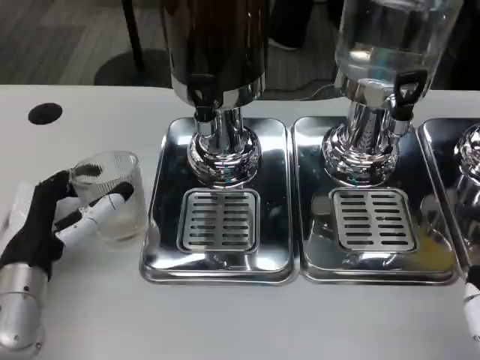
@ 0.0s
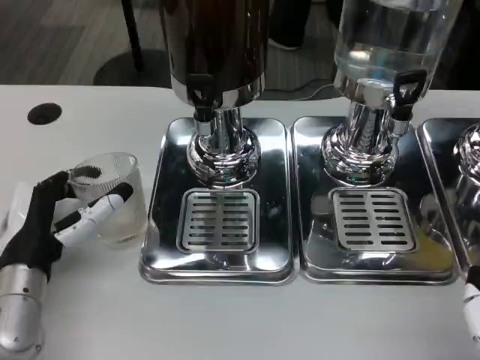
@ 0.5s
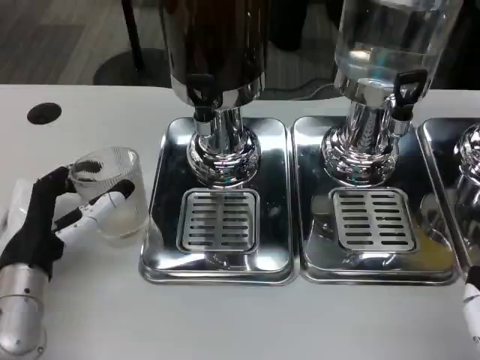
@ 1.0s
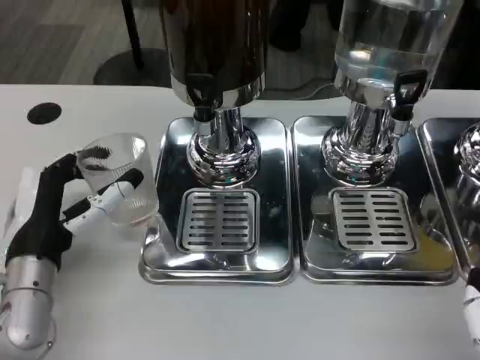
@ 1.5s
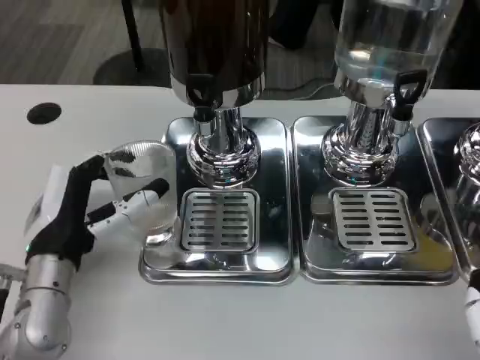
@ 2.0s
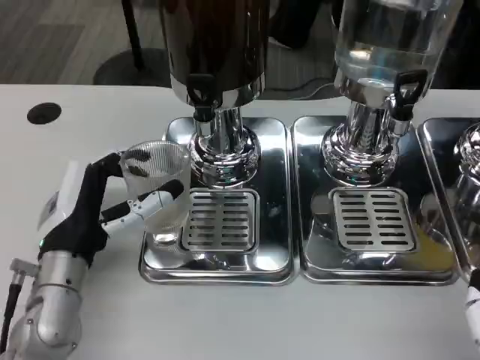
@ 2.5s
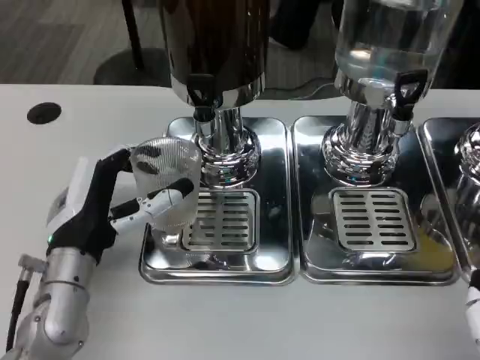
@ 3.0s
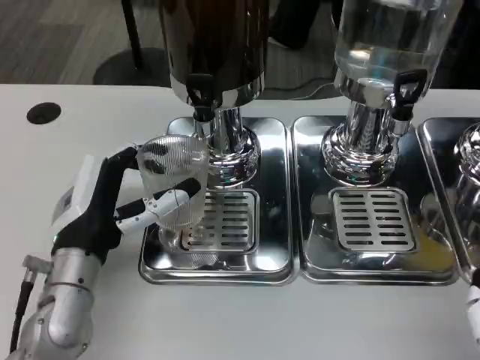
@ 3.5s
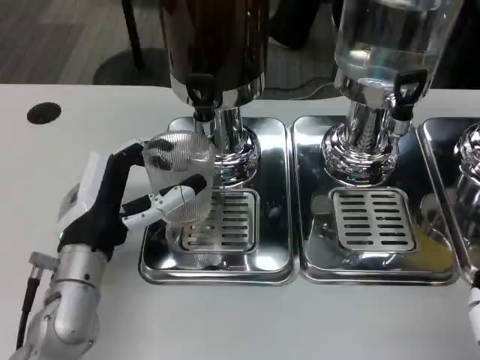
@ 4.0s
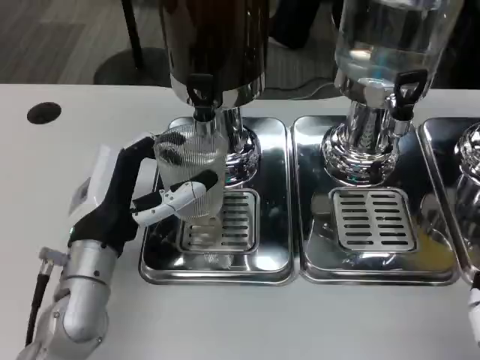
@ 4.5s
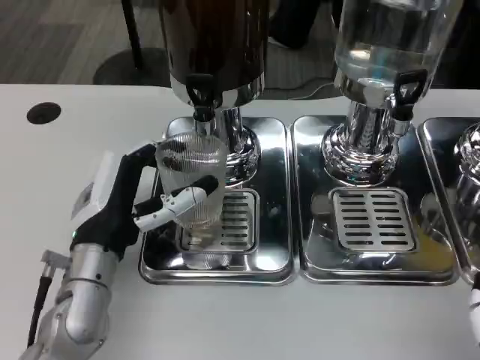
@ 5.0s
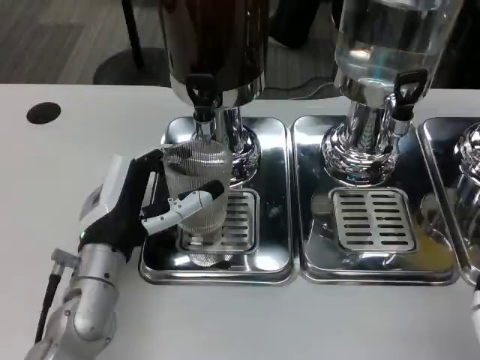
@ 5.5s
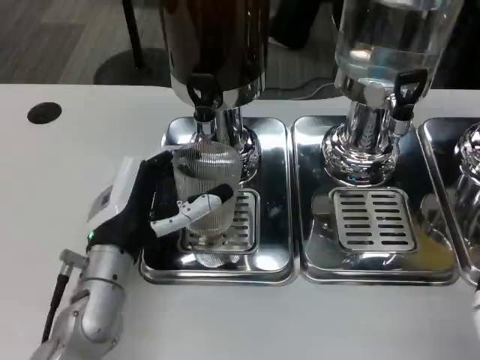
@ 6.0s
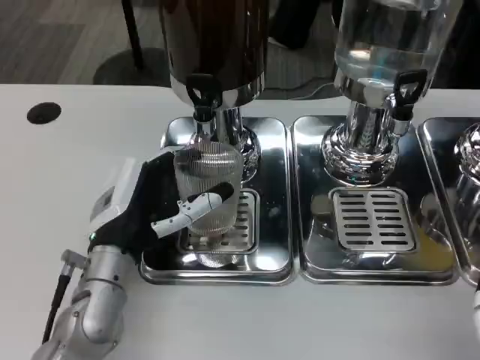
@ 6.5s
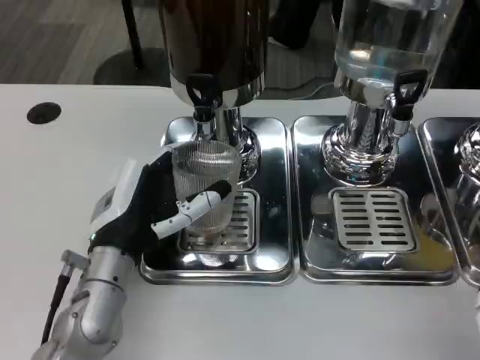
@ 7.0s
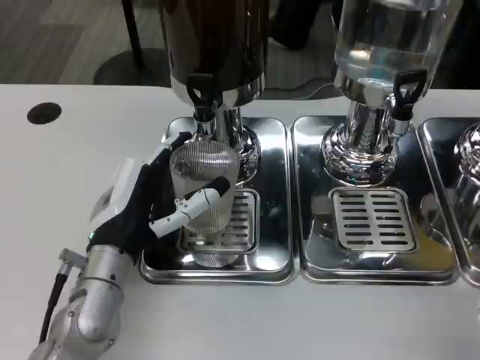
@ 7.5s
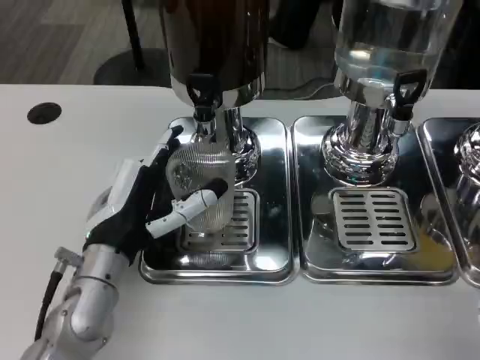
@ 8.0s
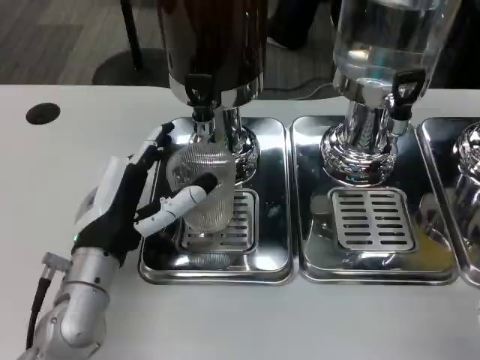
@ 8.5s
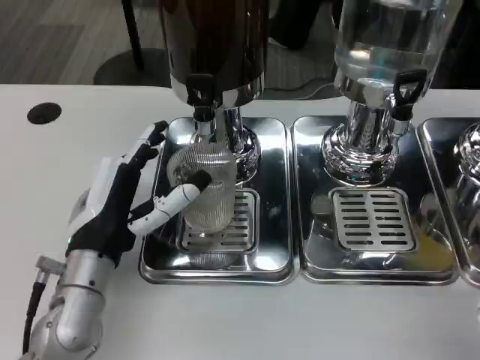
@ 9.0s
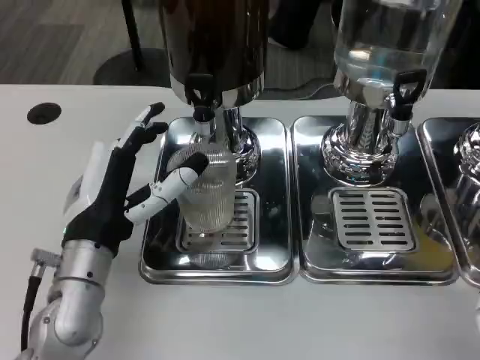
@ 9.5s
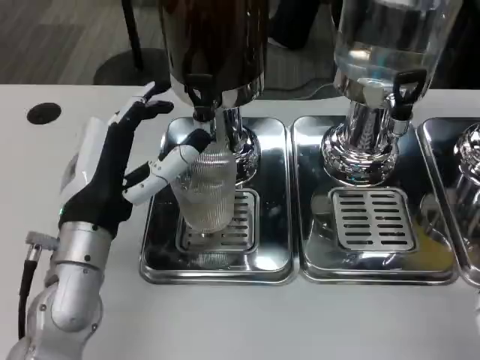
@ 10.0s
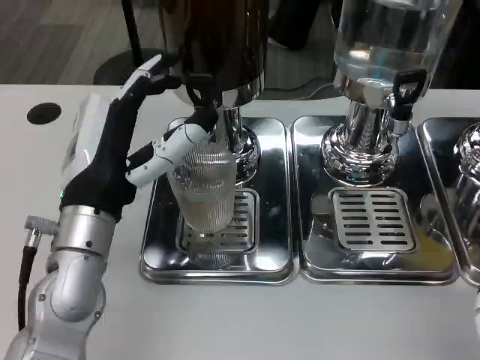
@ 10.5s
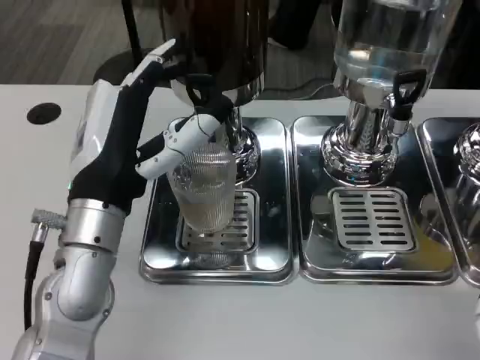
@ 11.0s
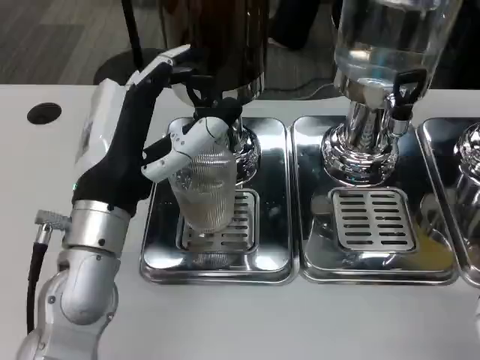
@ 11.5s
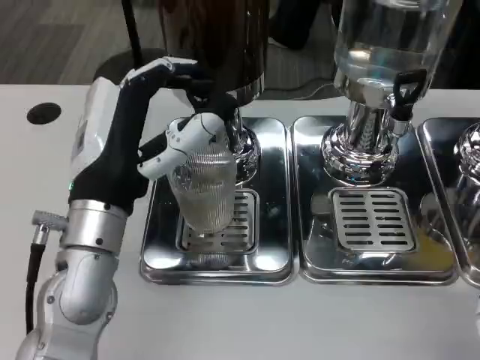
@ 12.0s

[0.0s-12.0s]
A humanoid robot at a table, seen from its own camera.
Task of the whole recording: Grasp the cup under the faucet to collect the drink, then remove the cup.
0.0s to 4.0s: The hands stay close to where they were, moving slightly.
4.0s to 6.0s: The hands move only a little.
6.0s to 8.0s: Both hands stay put.
8.0s to 10.0s: The hands stay close to where they were, moving slightly.
10.0s to 12.0s: The hands move only a little.

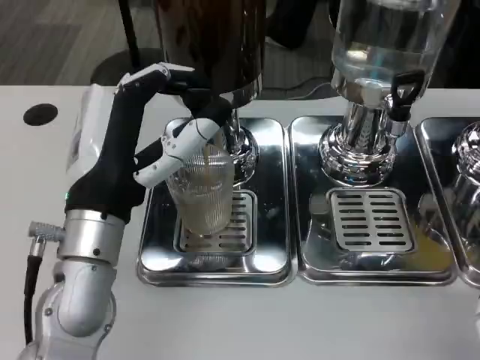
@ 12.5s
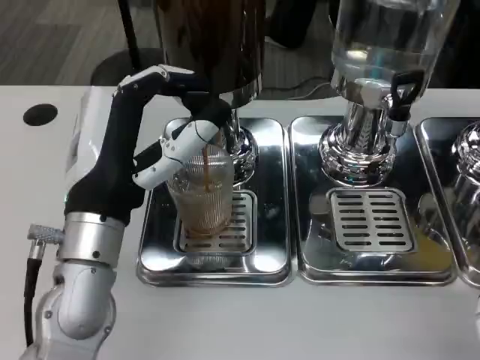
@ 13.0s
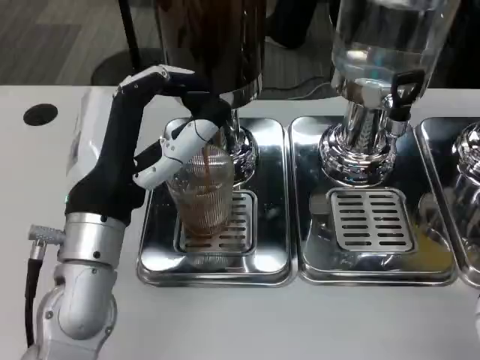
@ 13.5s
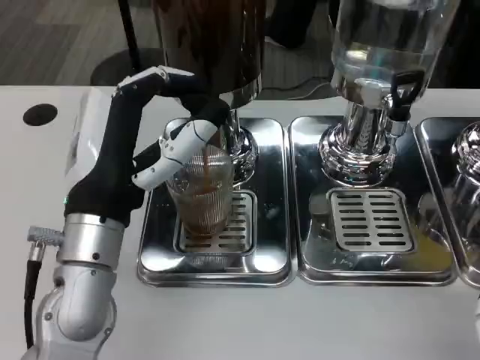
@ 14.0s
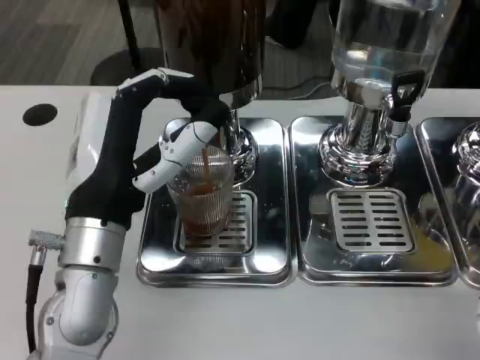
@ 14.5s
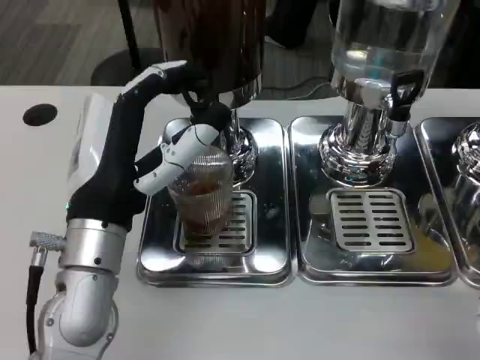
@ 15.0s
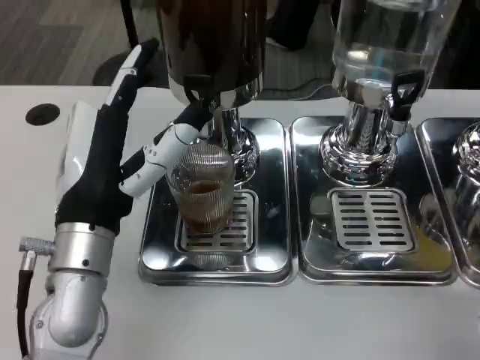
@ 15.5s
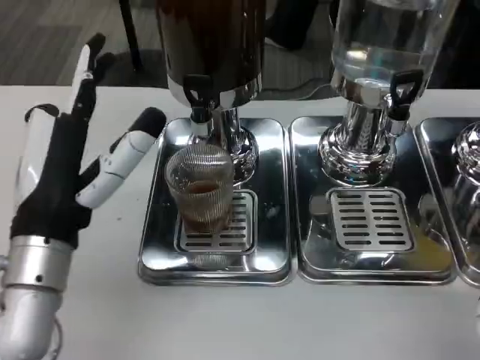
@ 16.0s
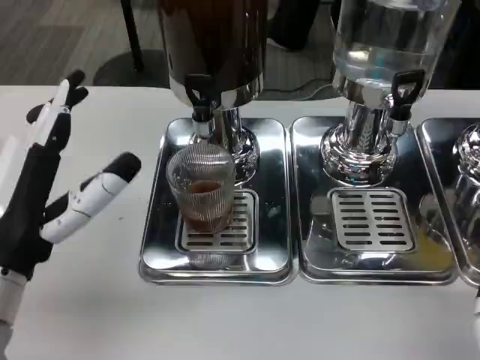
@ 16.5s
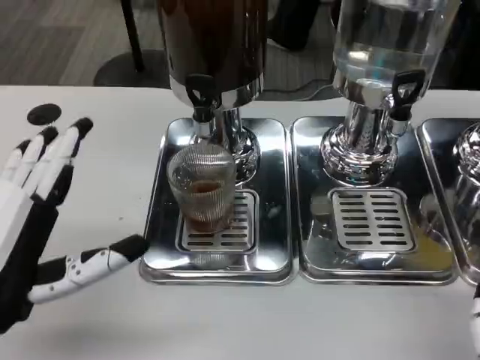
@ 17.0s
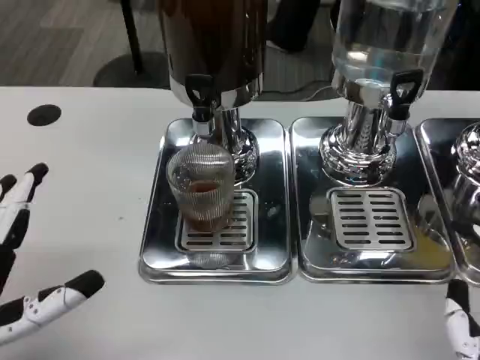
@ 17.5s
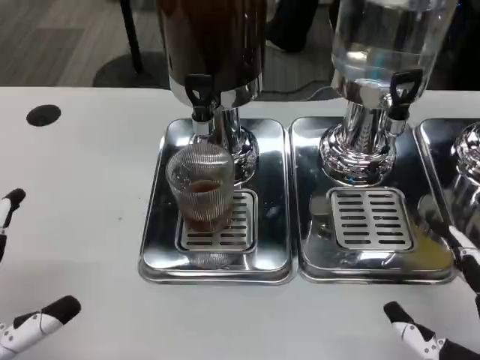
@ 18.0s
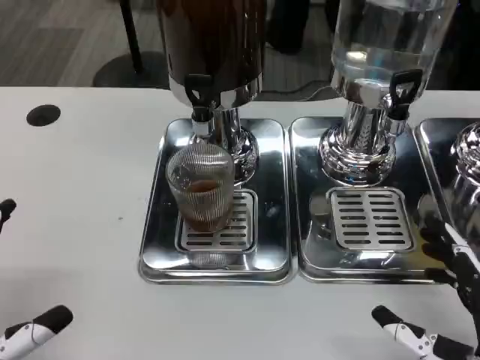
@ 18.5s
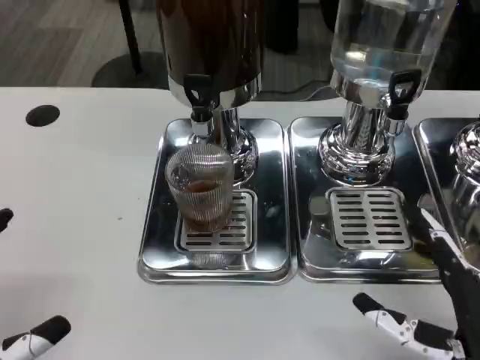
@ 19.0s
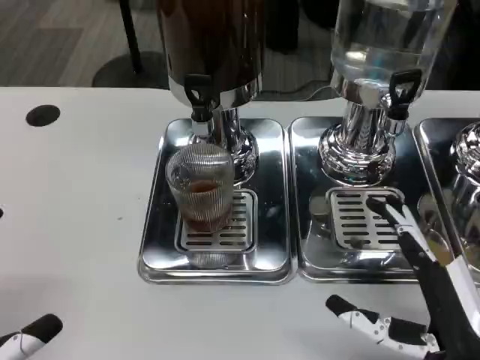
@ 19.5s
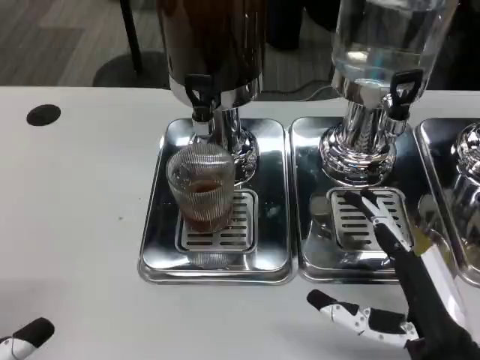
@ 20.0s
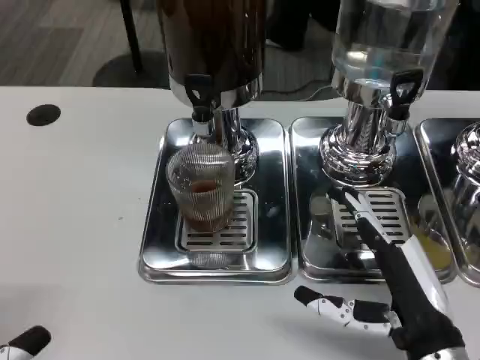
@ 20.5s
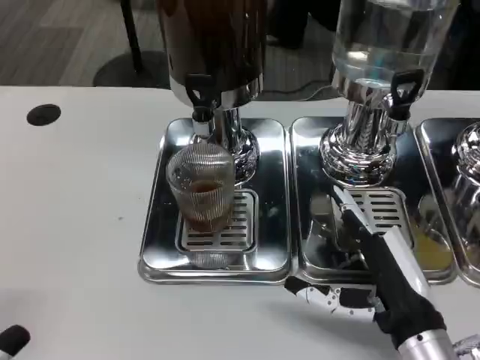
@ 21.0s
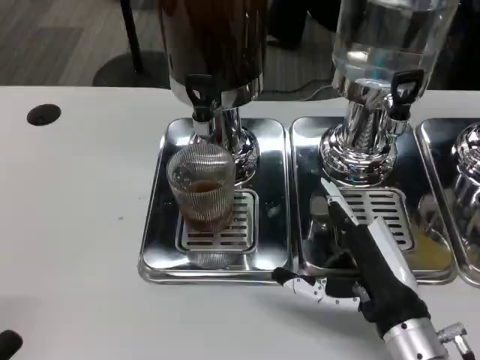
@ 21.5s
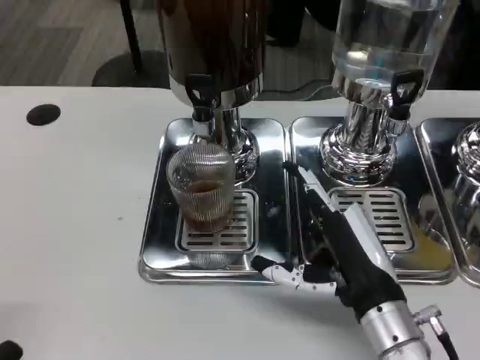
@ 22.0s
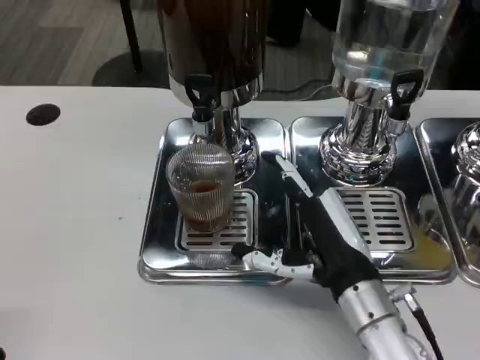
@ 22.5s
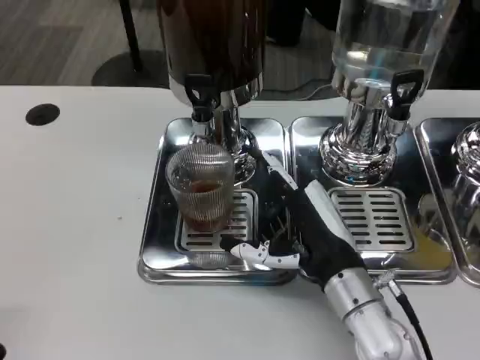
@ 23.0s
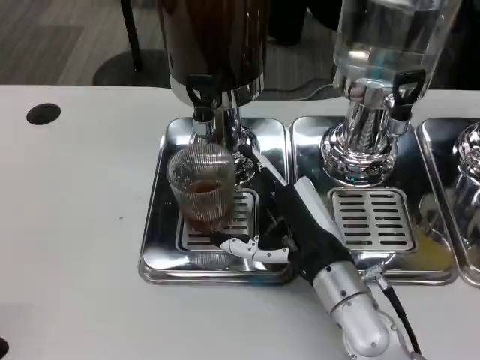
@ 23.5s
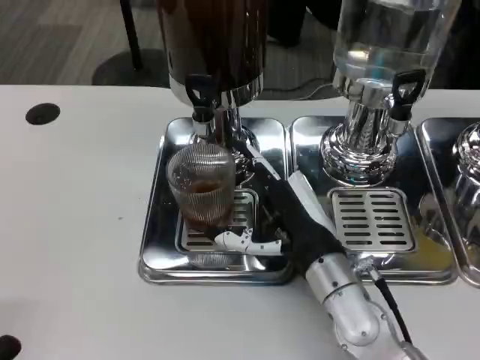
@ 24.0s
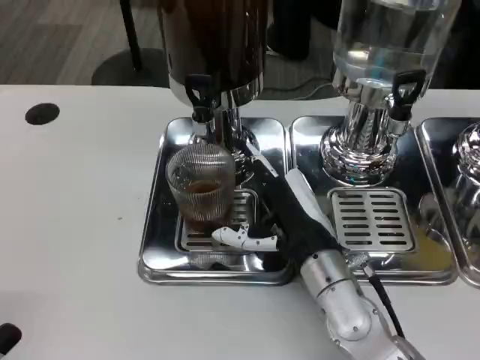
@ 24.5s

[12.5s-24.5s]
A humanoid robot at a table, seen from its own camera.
Task of the whole recording: Grasp the cup under the faucet to collect the drink, then remove the cup.
12.5s to 14.5s: Both hands stay put.
14.5s to 16.5s: The left hand is displaced to the left by approximately 10 cm.
16.5s to 18.5s: The left hand travels backward and to the left by approximately 10 cm. Meanwhile the right hand shifts by some 5 cm.
18.5s to 20.5s: The right hand is displaced forward by about 5 cm.
20.5s to 22.5s: The right hand heads forward and to the left, covering roughly 10 cm.
22.5s to 24.5s: The hands move only a little.

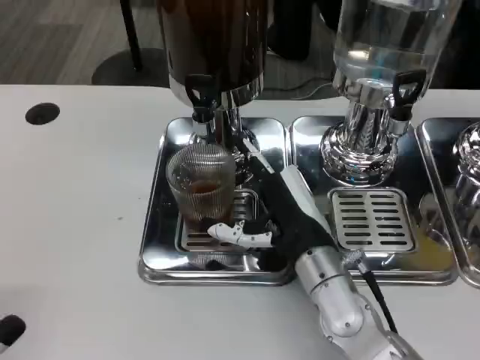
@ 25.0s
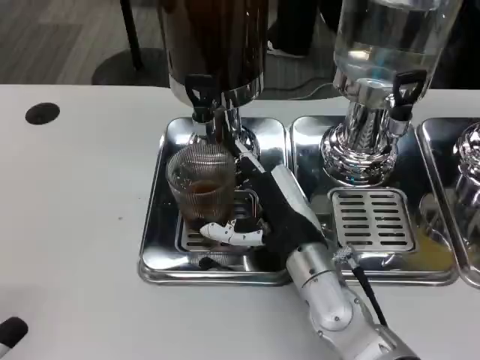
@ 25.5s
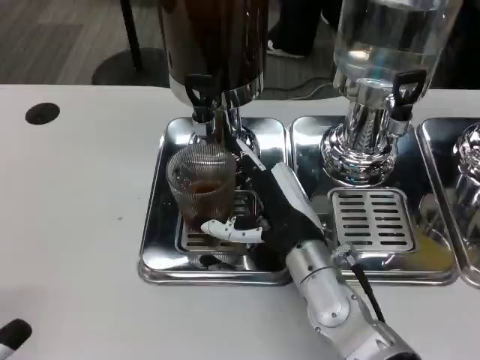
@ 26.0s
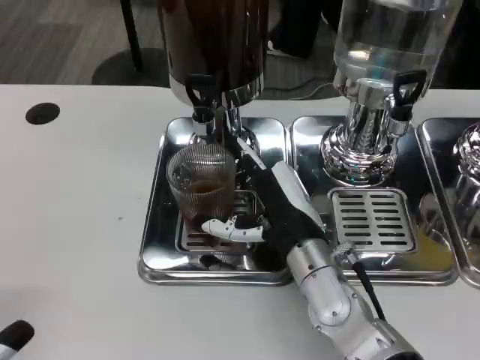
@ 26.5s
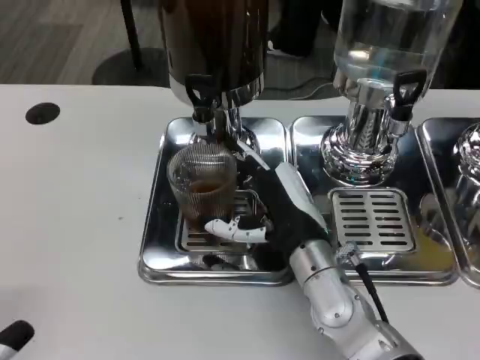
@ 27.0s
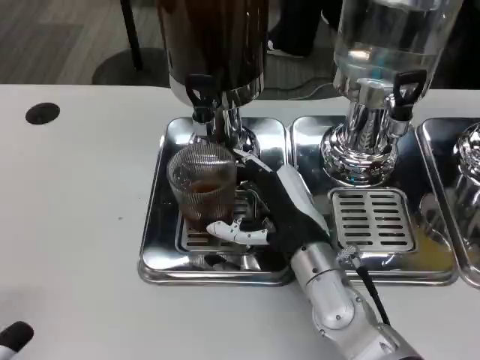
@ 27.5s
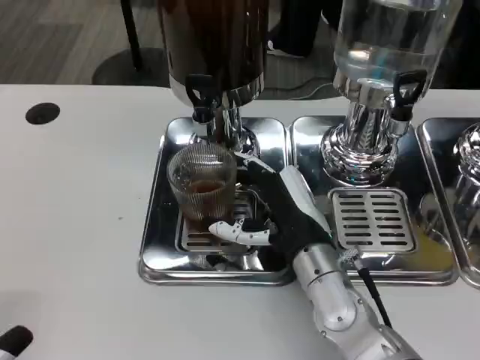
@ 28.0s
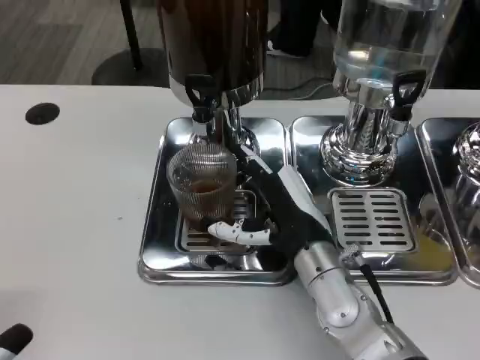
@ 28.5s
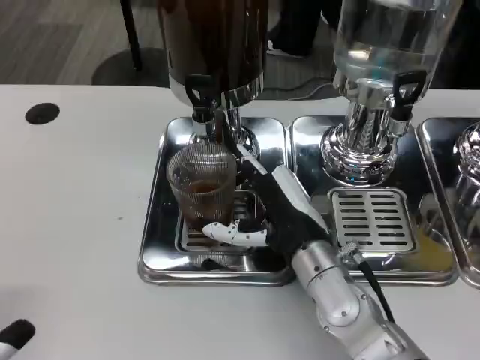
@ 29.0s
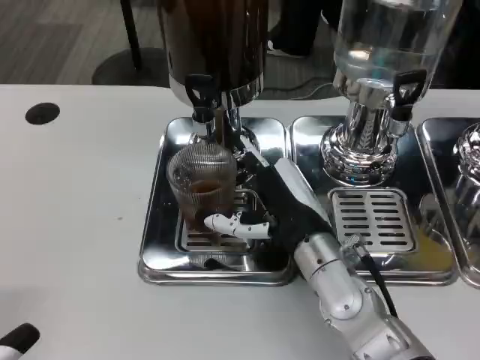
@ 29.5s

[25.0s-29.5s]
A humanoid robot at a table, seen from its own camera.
Task of the whole recording: Grasp the cup under the faucet to collect the drink, then remove the cup.
25.0s to 27.0s: Both hands stay about where they are.
27.0s to 29.5s: The hands move only a little.
